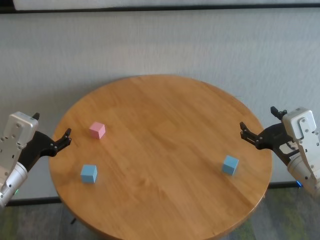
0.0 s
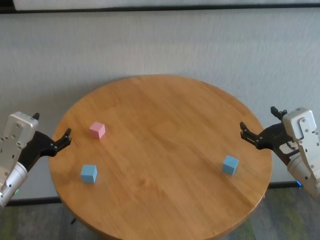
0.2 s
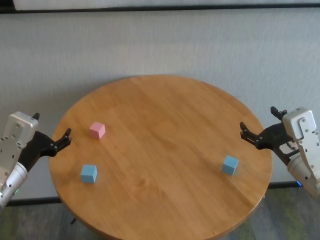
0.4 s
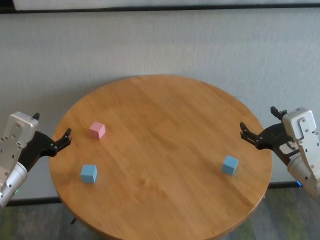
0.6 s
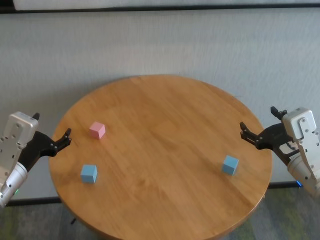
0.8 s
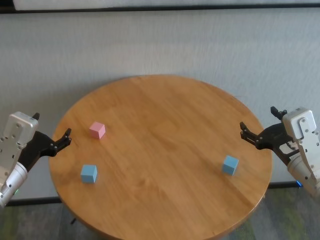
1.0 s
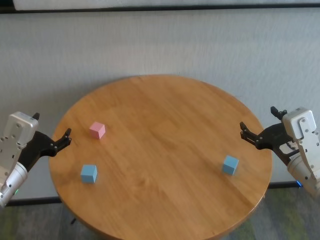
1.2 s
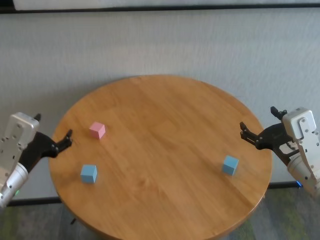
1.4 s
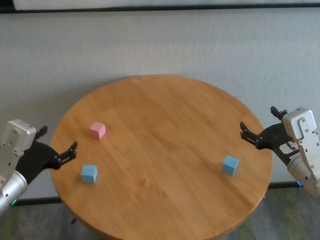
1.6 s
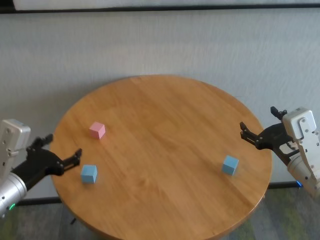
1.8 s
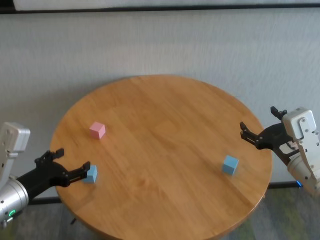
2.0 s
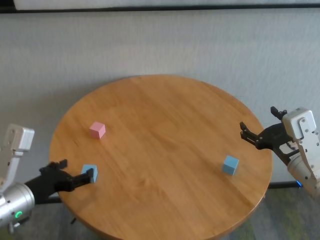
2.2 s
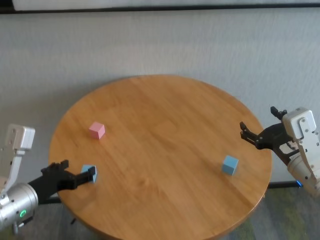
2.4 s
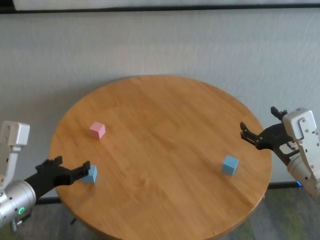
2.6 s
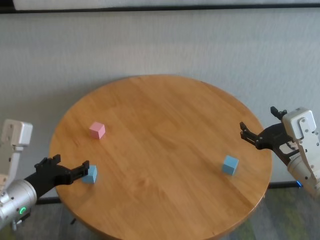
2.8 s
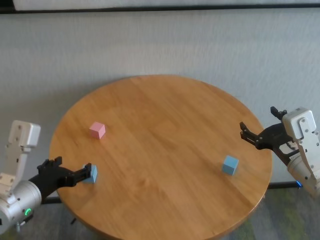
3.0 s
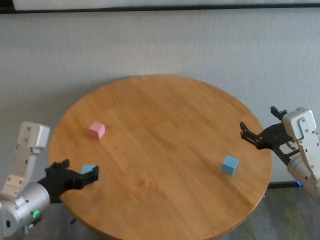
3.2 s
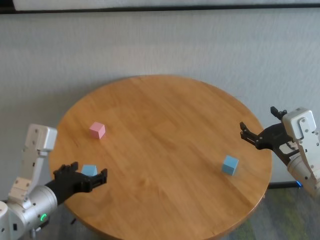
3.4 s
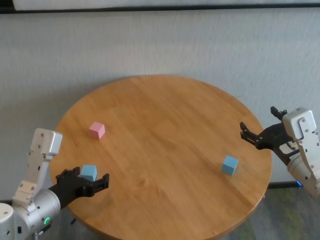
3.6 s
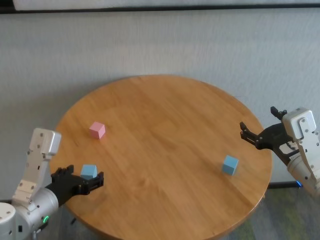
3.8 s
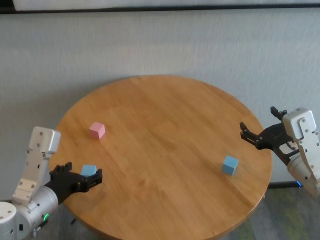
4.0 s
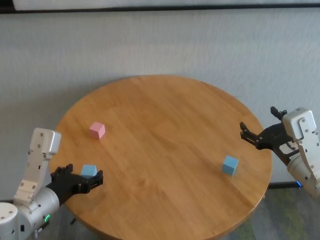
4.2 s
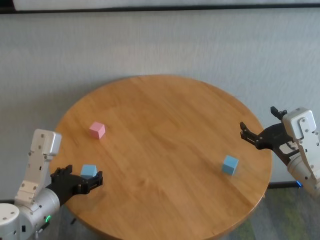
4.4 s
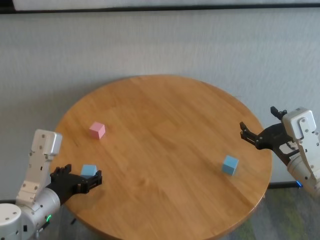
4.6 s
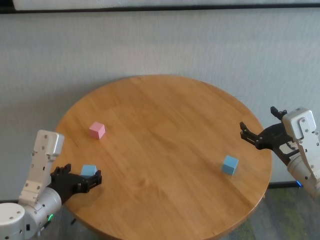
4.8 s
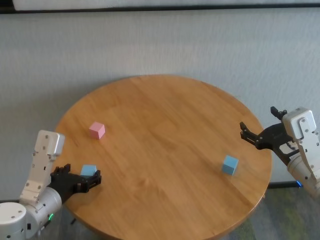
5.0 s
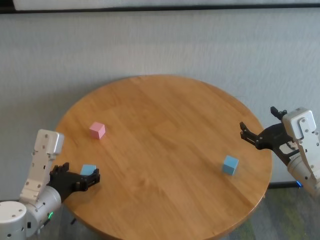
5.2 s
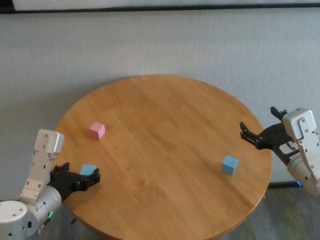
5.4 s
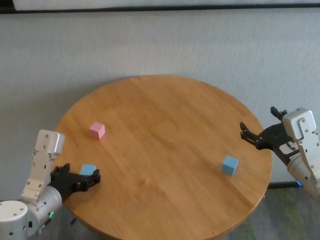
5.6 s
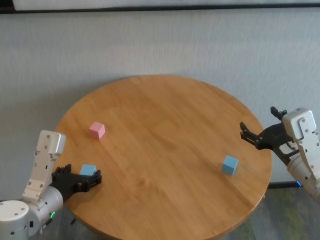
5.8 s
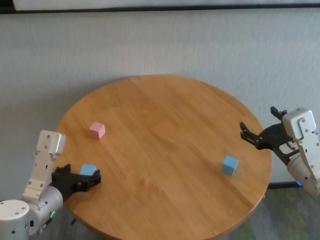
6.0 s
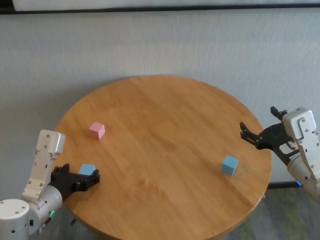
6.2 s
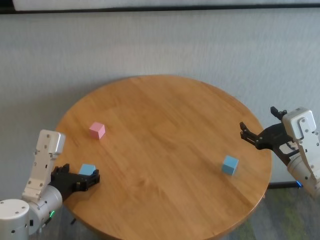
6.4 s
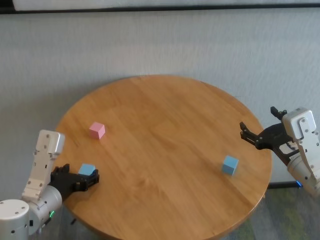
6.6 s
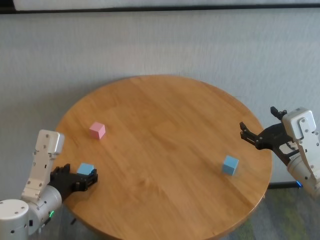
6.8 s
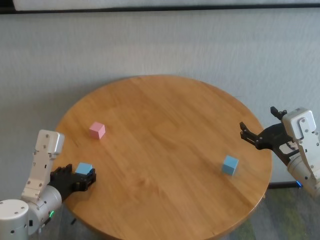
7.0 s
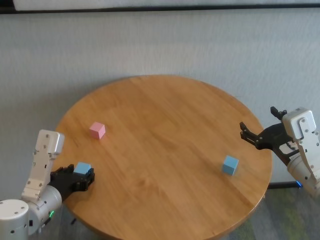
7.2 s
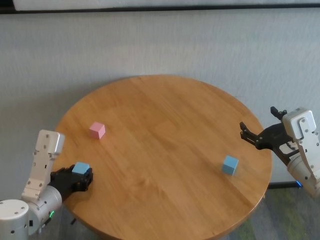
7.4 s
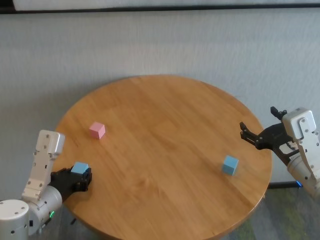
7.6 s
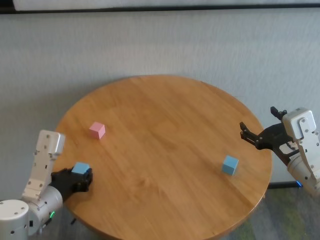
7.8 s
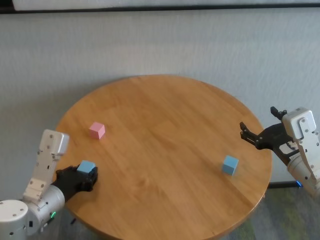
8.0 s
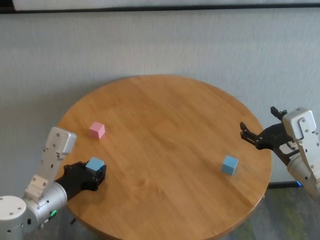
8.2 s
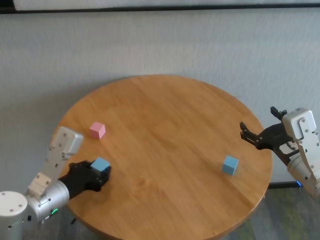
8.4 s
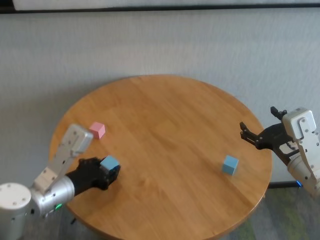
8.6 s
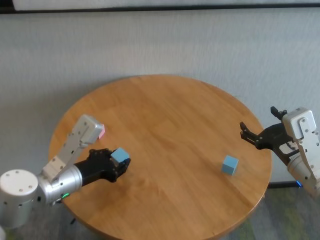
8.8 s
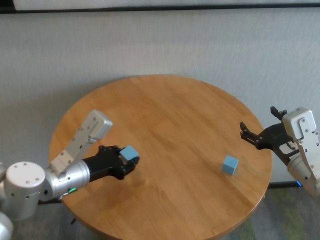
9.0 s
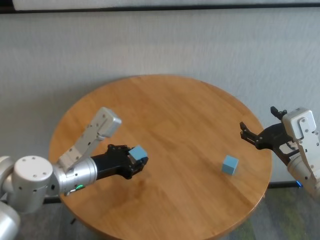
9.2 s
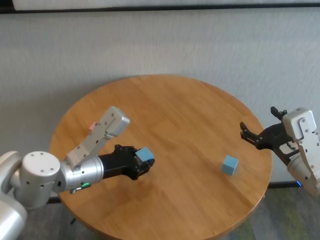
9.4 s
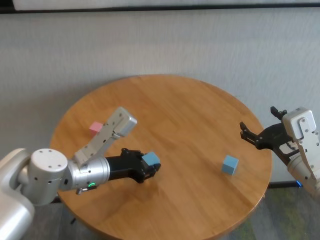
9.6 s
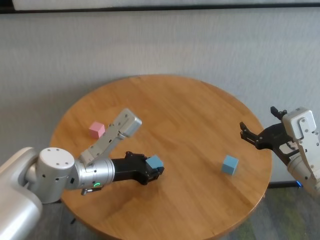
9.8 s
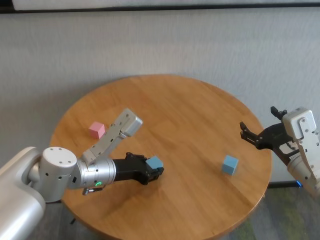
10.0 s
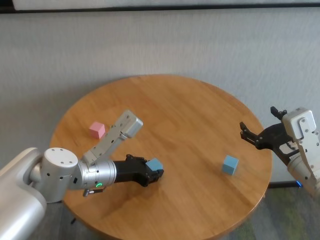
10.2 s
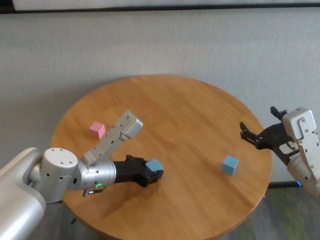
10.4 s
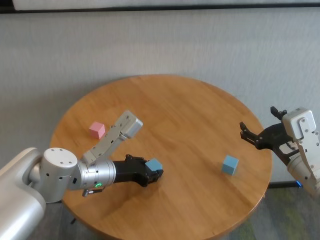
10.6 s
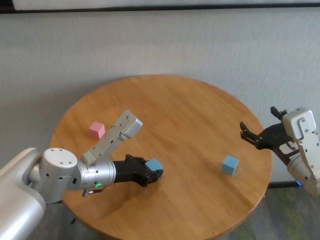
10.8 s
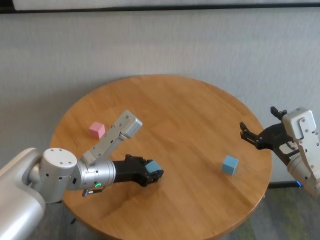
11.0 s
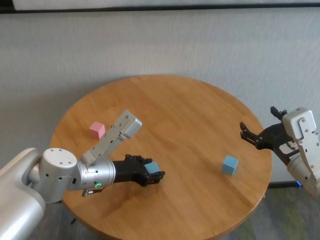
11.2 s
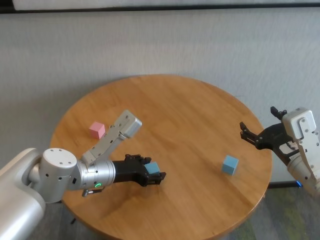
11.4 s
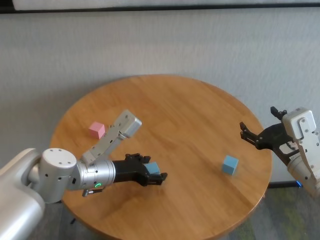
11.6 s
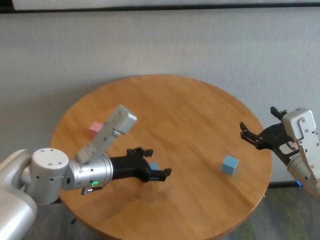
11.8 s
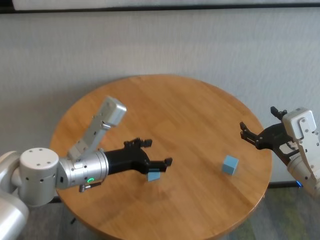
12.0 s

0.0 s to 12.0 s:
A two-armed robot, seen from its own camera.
Task of the whole recording: stack building blocks on the table.
Step, 0.0 to 7.6 s: Grasp the blue building block with left gripper.
Step, 7.8 to 11.4 s: Place the blue building block in the center of table with left gripper.

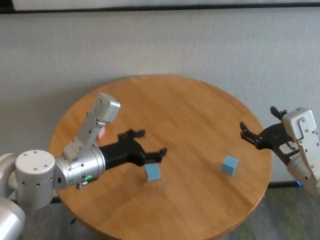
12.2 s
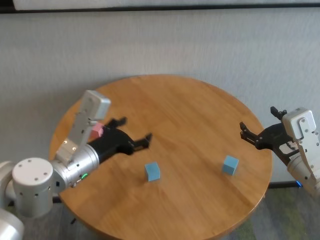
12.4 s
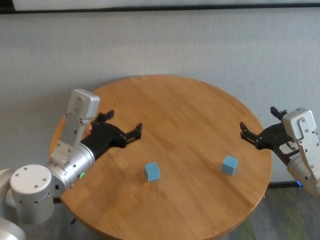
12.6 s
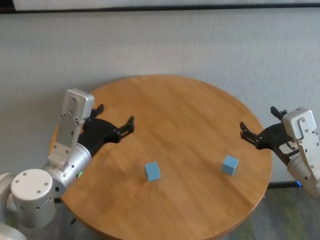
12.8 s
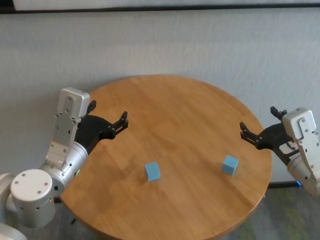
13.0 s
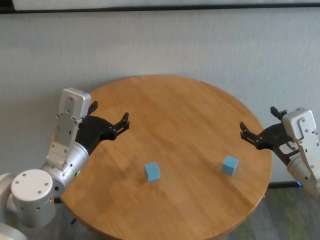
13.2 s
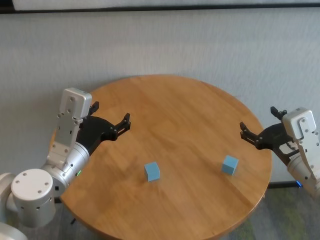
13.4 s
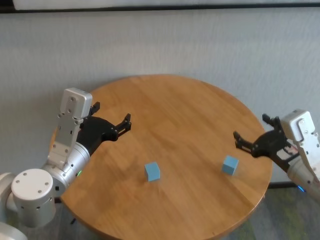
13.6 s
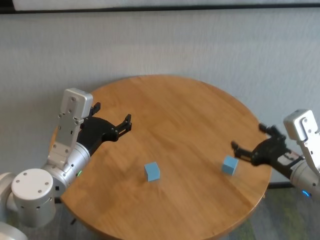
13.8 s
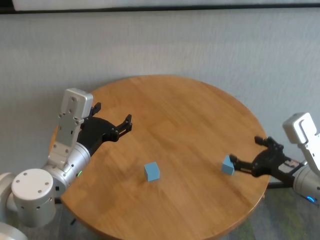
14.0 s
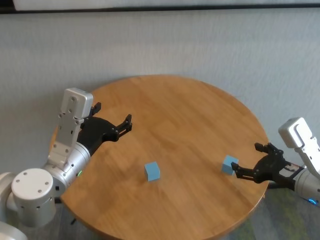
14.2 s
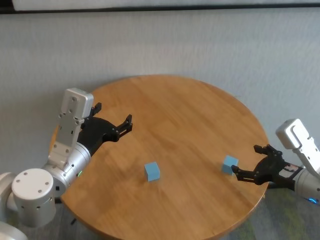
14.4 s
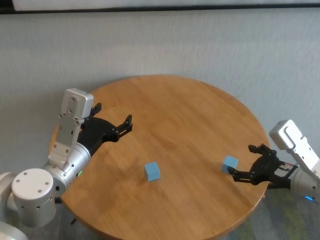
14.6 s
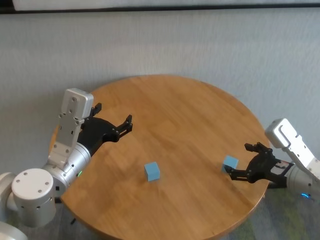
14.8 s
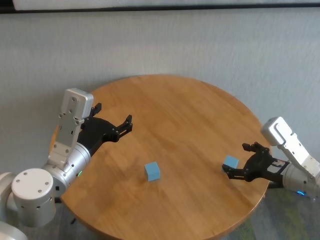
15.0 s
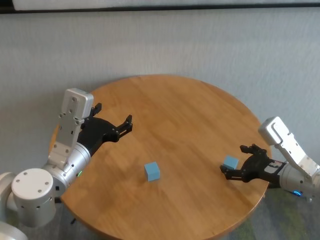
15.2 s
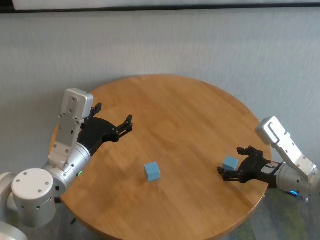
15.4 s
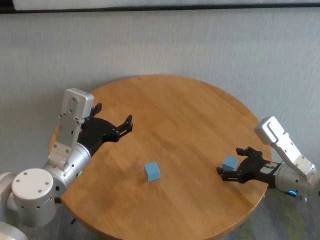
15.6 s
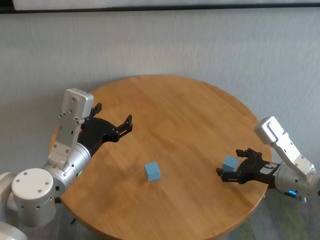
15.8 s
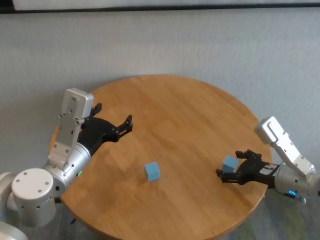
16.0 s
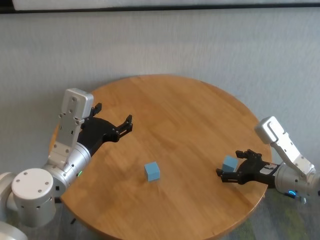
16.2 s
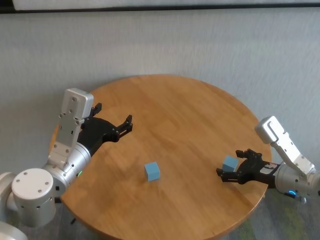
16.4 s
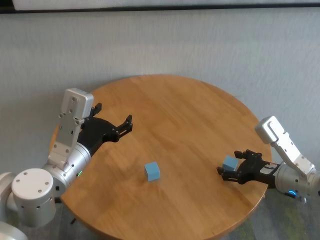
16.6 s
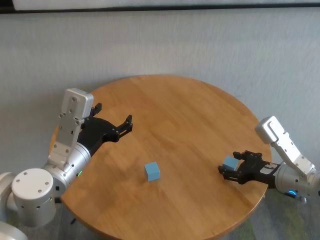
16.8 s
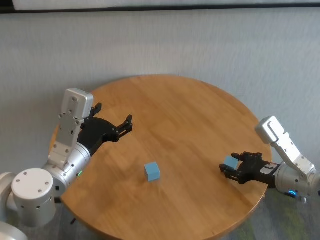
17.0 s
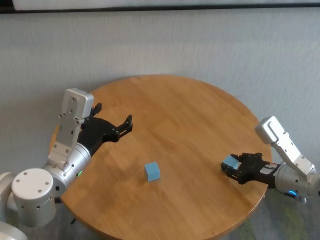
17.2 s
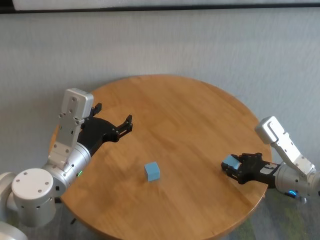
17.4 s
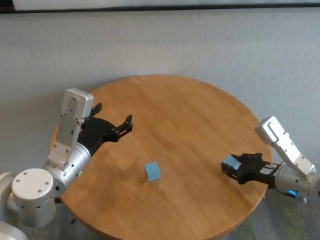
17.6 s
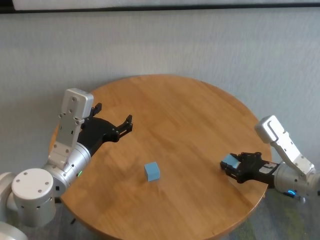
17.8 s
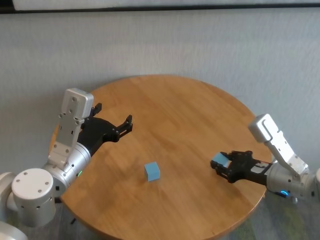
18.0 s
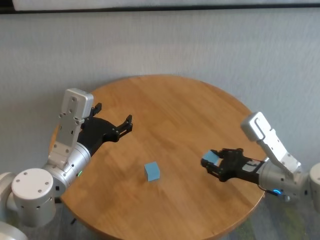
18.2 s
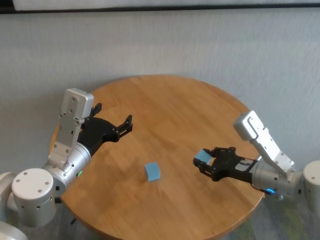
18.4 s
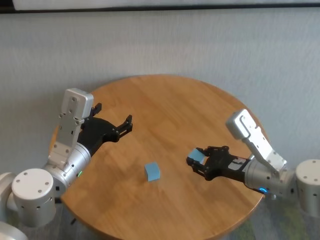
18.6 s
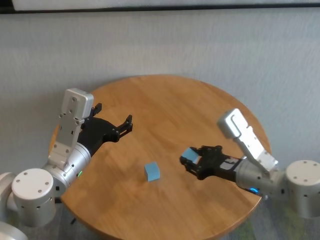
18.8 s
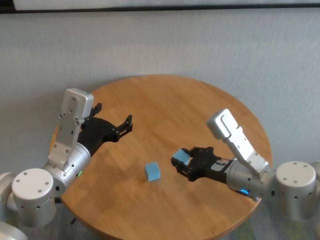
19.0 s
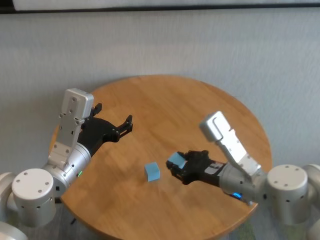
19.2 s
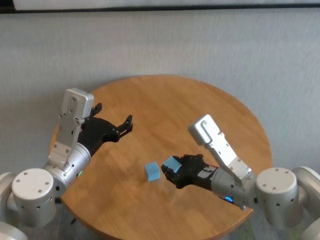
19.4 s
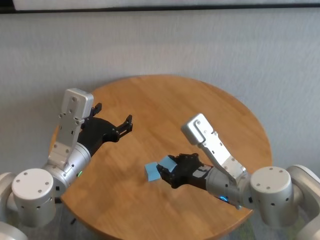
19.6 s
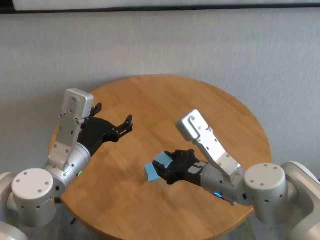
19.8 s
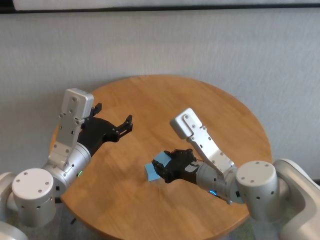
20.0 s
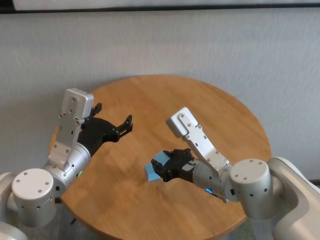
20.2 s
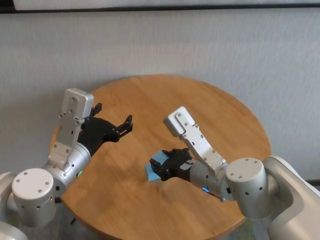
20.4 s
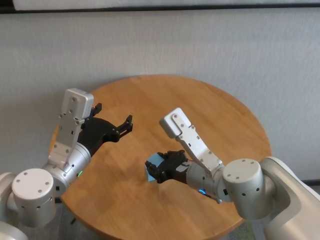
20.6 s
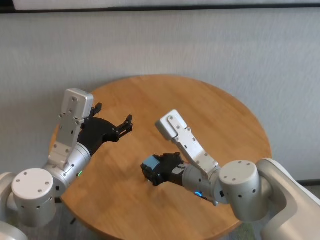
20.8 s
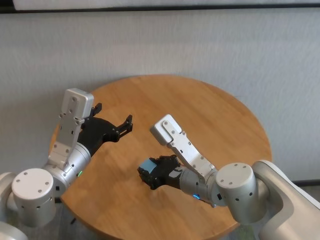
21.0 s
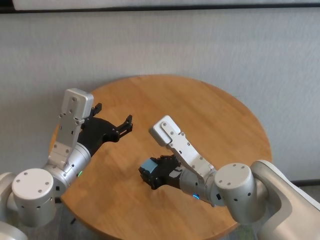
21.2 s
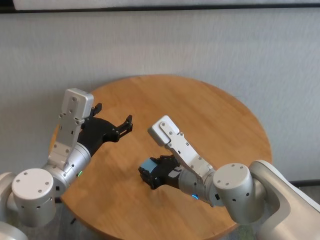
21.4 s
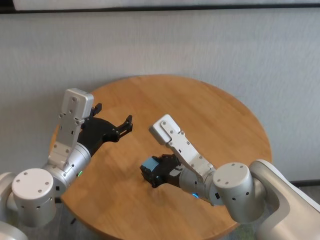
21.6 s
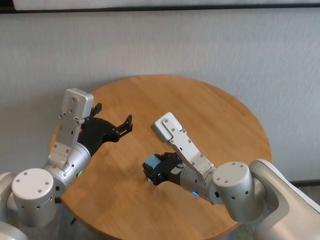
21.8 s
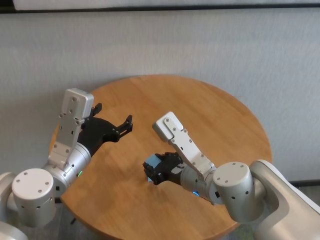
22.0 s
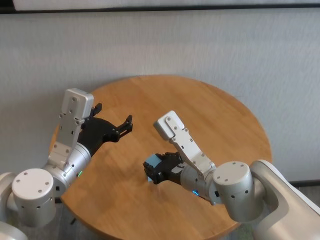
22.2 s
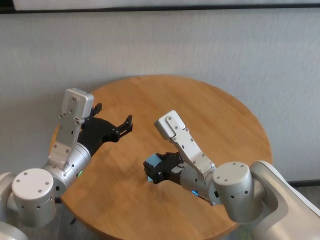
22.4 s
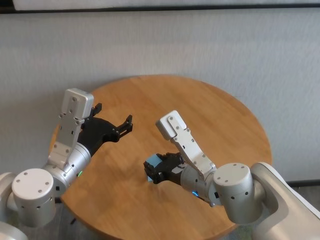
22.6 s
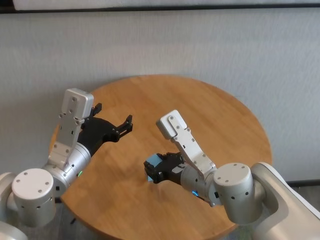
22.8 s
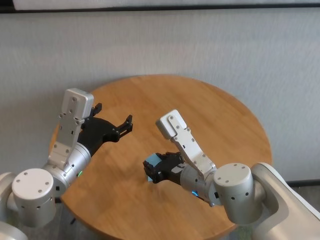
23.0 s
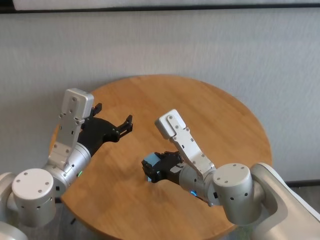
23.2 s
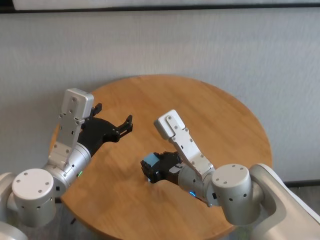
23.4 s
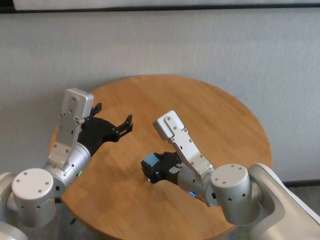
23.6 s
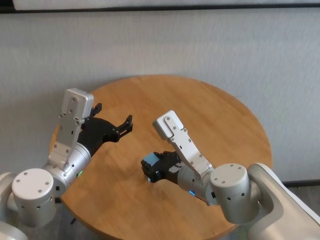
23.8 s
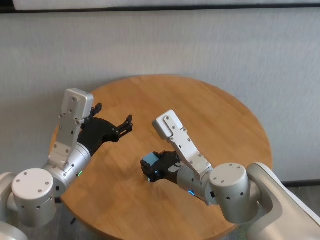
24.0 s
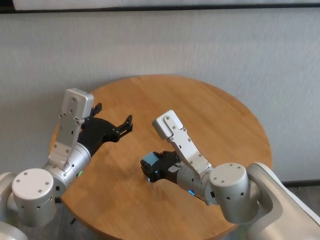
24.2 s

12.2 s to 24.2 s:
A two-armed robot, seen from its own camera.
Task of the whole recording: stack building blocks on the table.
Step, 12.2 to 17.4 s: Grasp the blue building block with right gripper.
